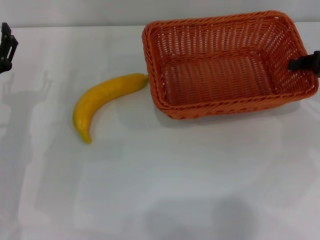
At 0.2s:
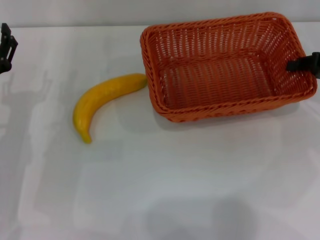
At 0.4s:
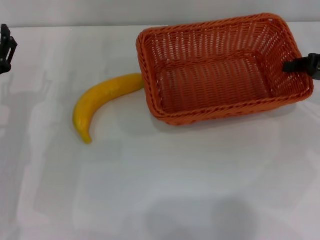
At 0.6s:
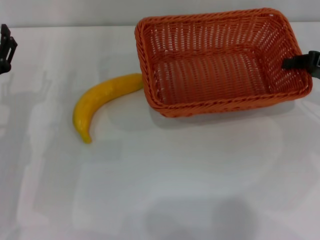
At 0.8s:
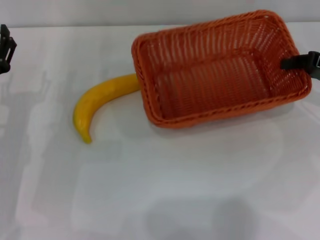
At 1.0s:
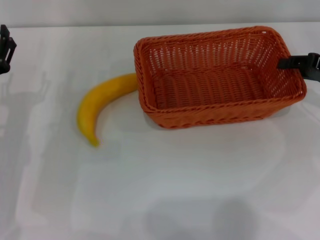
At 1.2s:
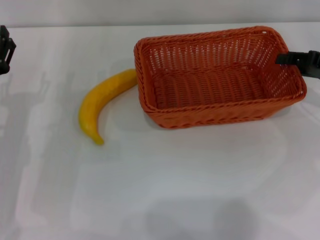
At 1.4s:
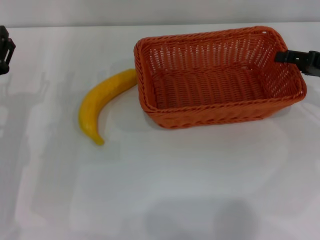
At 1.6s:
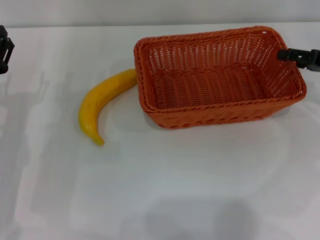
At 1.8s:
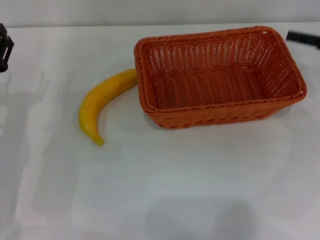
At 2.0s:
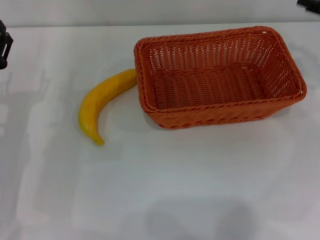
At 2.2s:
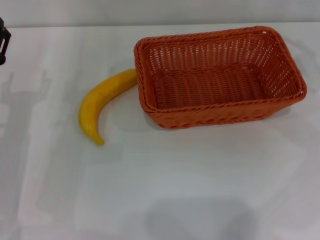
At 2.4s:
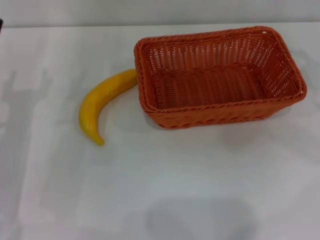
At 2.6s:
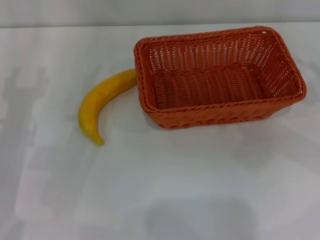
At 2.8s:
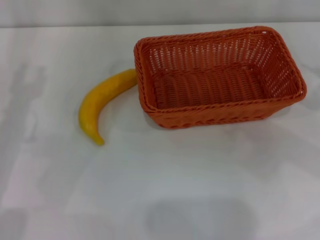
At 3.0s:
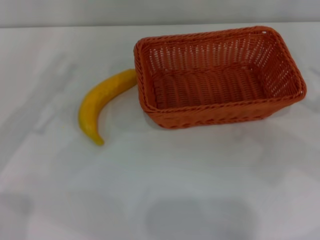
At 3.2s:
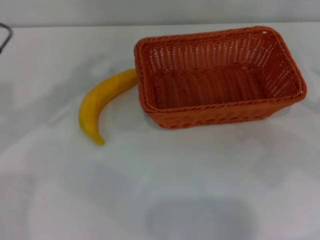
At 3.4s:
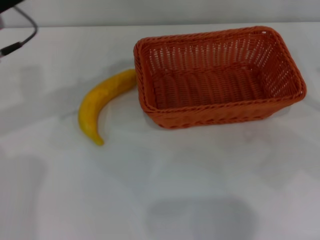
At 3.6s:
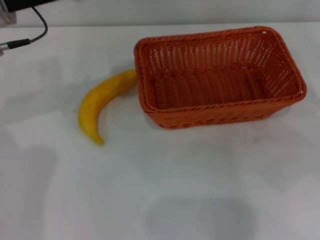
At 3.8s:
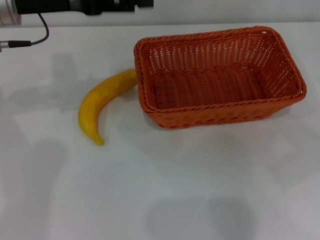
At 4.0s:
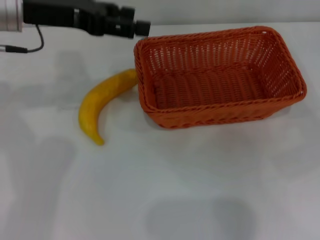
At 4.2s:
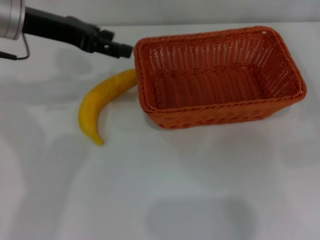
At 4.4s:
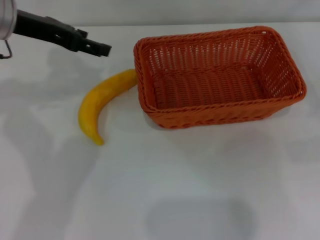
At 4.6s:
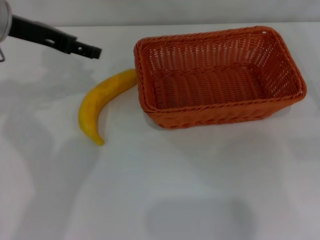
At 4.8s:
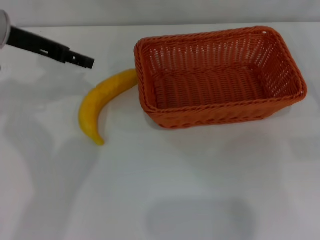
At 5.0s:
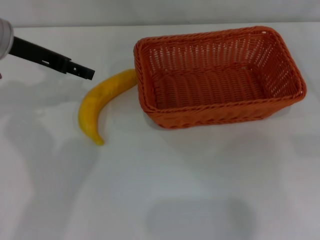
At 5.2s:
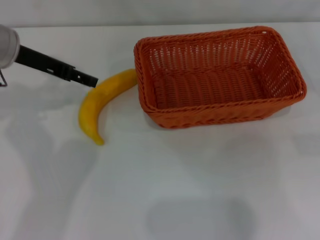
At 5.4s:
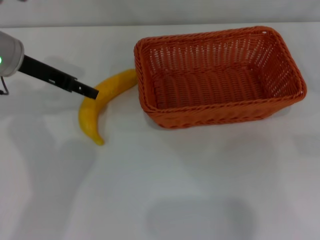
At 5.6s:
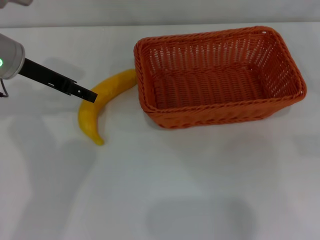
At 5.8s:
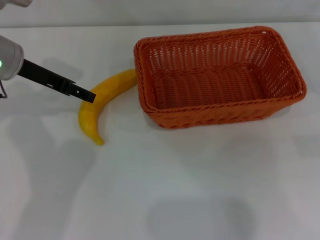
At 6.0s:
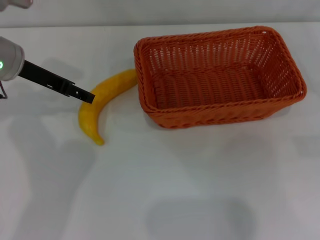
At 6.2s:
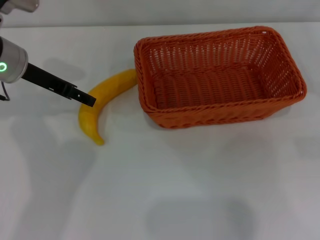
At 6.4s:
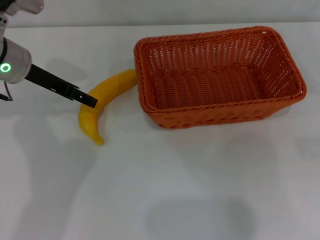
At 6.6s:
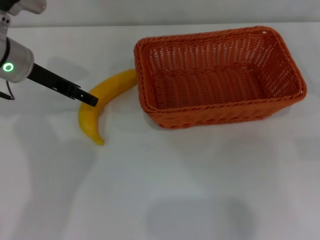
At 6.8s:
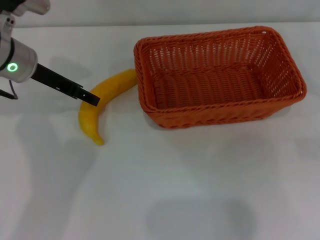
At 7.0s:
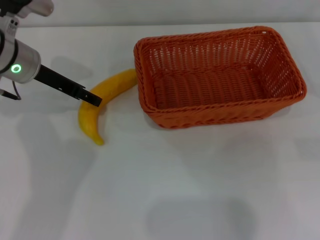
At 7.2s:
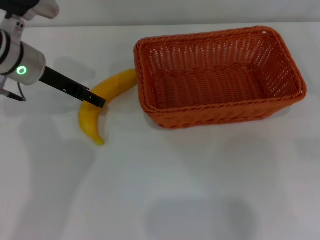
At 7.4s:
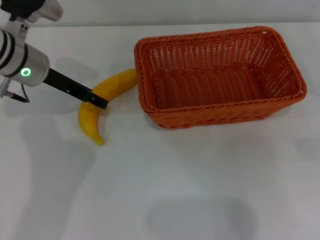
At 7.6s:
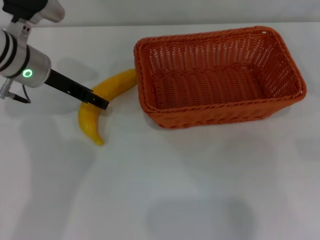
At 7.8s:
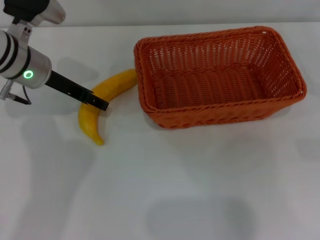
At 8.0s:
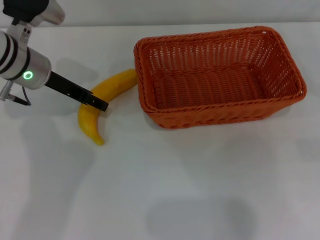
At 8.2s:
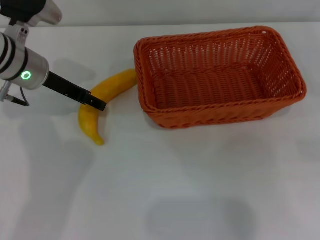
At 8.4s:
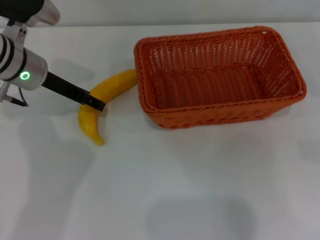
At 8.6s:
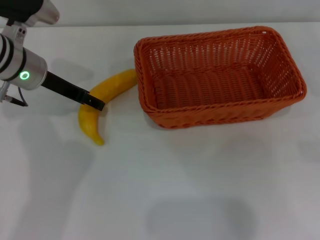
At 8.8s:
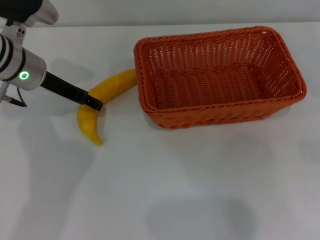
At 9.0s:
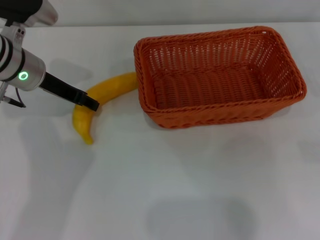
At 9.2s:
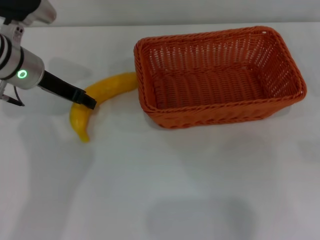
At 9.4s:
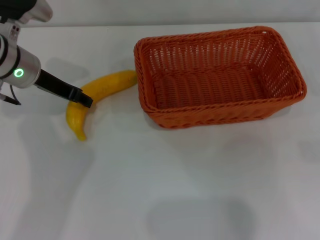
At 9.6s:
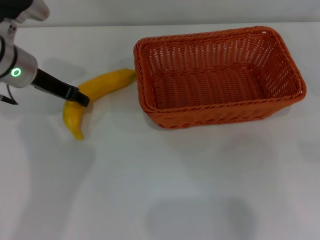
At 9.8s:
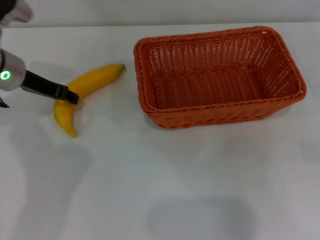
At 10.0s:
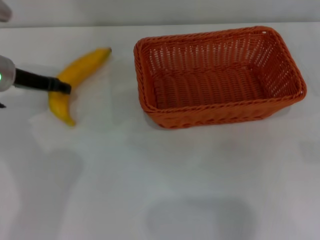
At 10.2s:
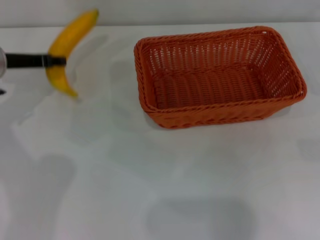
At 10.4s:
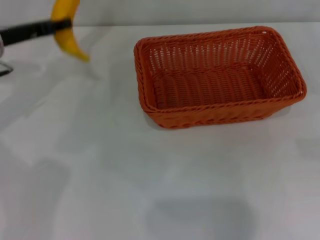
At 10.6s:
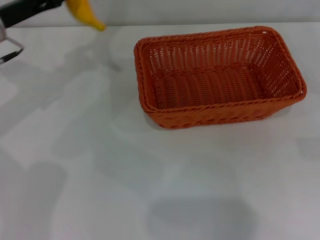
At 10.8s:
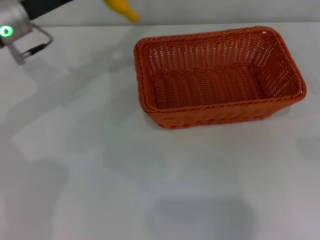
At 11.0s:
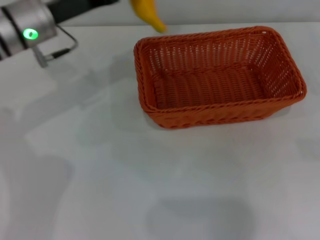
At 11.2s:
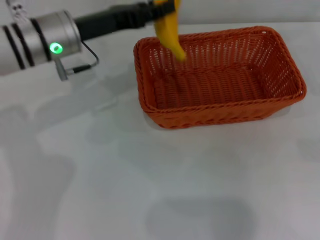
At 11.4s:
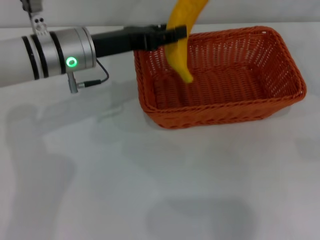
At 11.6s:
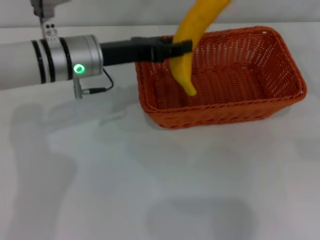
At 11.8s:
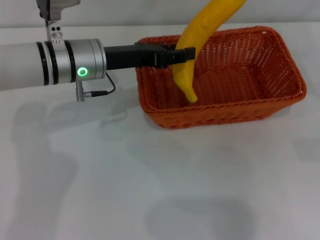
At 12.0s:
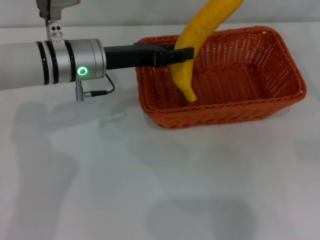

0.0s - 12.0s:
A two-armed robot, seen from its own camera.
Step, 2.0s - 10.0s: Pick up the banana with the left gripper.
0.0s - 1.6s: The right gripper opens.
1.6s - 3.0s: The right gripper goes some 10 cm backward, while the left gripper heads upward, covering roughly 10 cm.
3.0s - 4.4s: The left gripper goes approximately 10 cm forward and upward.
4.4s - 6.0s: The left gripper is displaced downward by about 5 cm.
6.0s - 9.0s: There are only small adjustments of the grippers.
9.0s - 10.4s: The left gripper goes roughly 5 cm to the left, and closes.
10.4s - 12.0s: The left gripper is displaced to the right by roughly 15 cm.

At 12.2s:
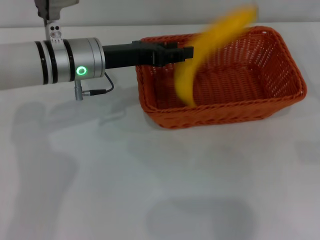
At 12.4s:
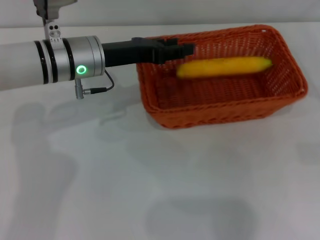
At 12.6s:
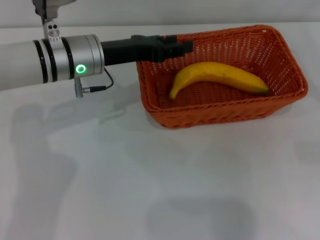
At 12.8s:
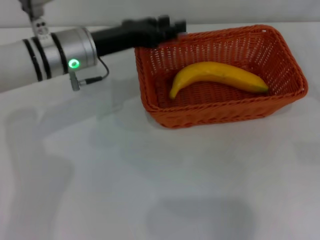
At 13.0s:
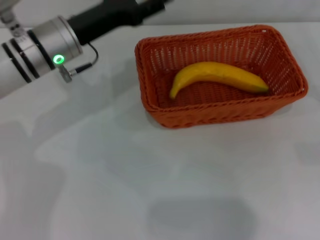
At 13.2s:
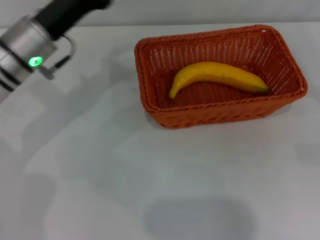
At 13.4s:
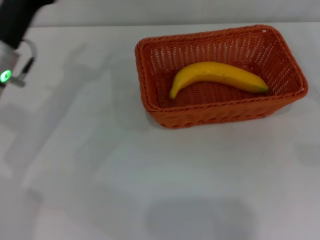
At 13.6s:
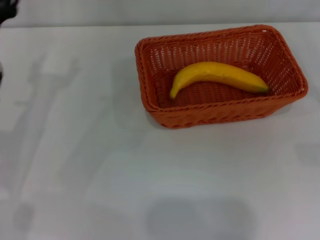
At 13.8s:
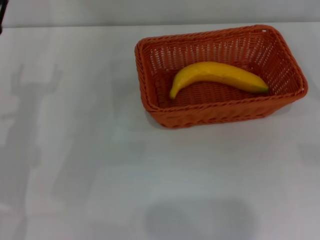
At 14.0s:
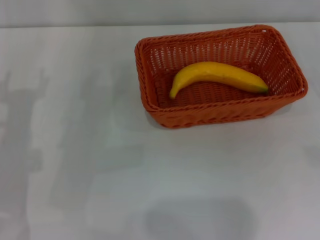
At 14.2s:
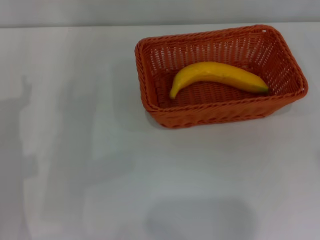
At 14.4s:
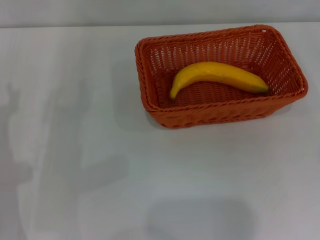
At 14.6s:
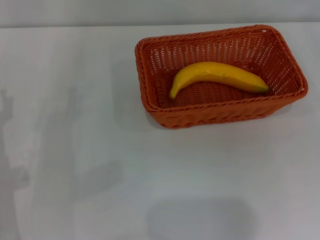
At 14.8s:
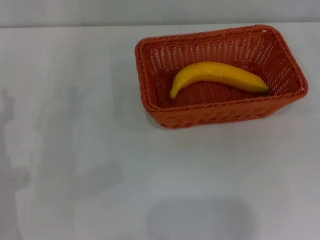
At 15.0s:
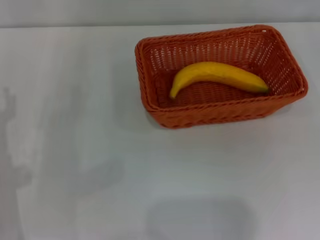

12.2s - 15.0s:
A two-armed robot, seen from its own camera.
12.2s - 13.6s: The left gripper travels to the left and backward by roughly 15 cm, and opens its fingers.

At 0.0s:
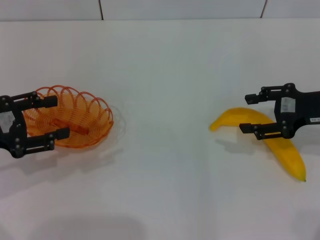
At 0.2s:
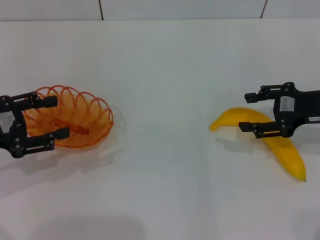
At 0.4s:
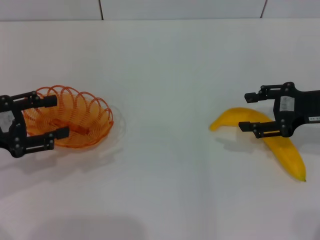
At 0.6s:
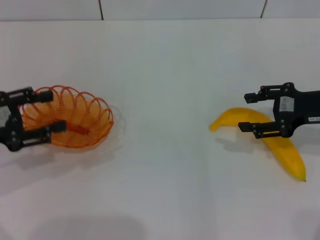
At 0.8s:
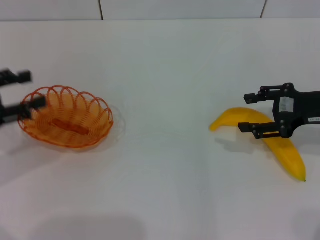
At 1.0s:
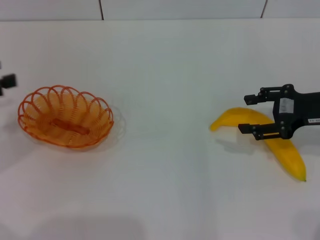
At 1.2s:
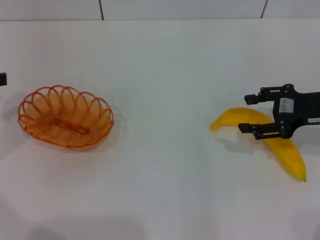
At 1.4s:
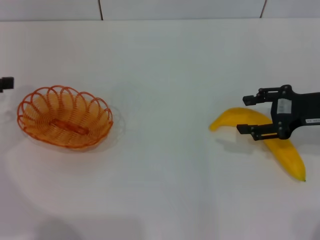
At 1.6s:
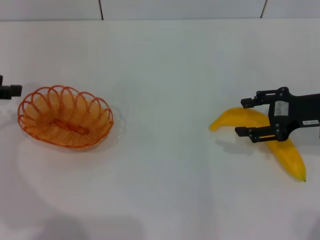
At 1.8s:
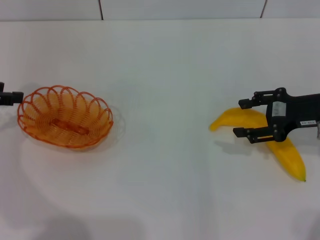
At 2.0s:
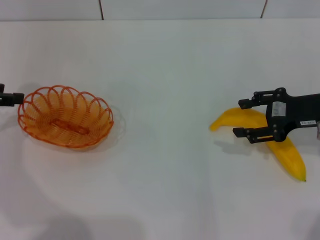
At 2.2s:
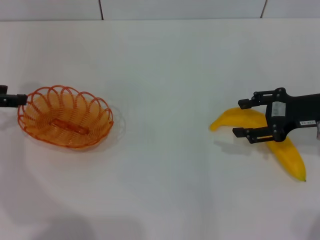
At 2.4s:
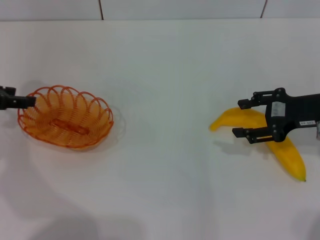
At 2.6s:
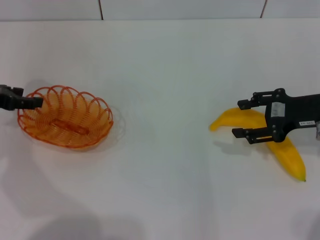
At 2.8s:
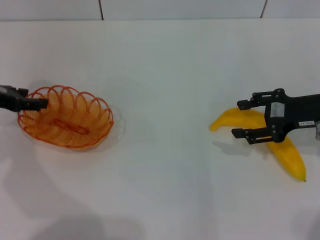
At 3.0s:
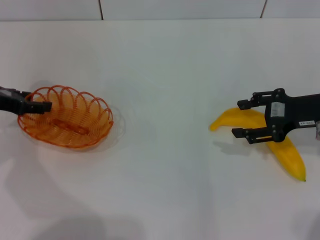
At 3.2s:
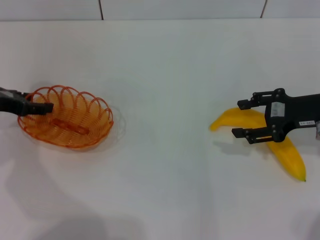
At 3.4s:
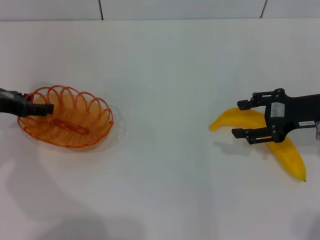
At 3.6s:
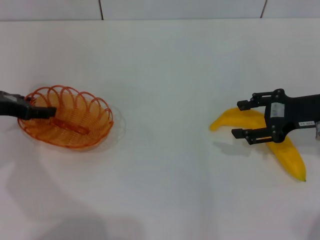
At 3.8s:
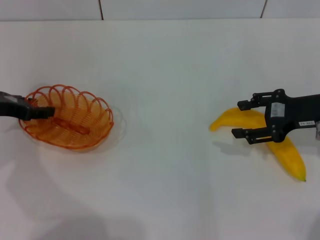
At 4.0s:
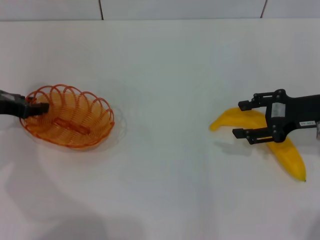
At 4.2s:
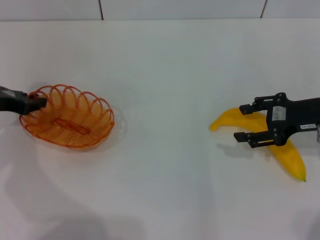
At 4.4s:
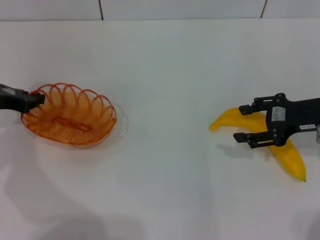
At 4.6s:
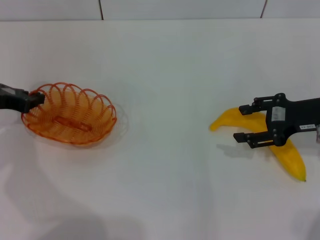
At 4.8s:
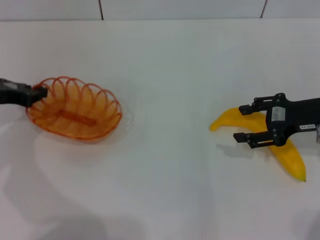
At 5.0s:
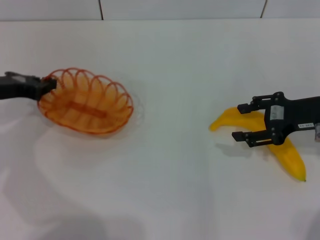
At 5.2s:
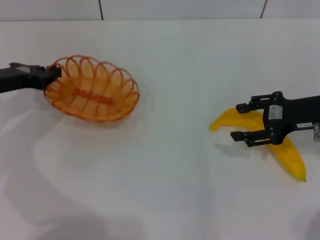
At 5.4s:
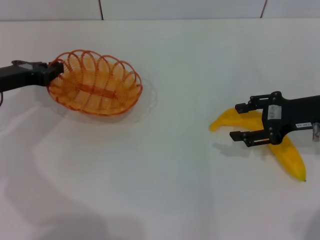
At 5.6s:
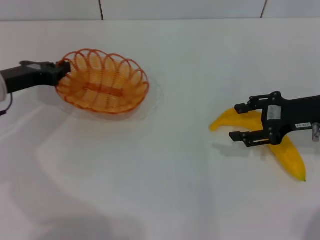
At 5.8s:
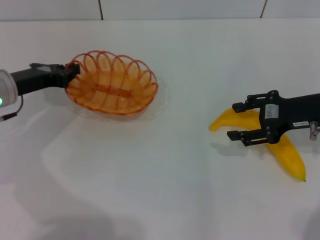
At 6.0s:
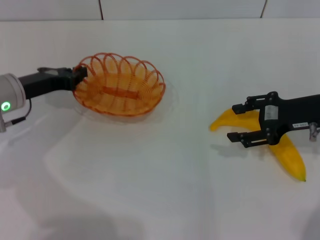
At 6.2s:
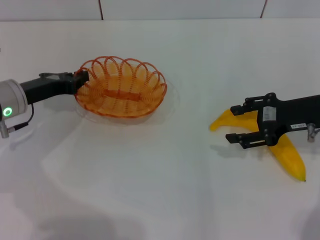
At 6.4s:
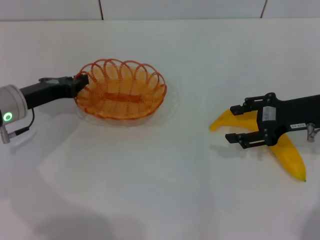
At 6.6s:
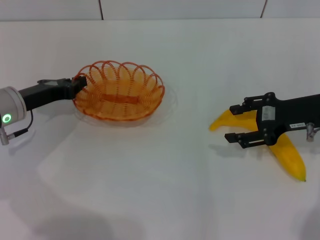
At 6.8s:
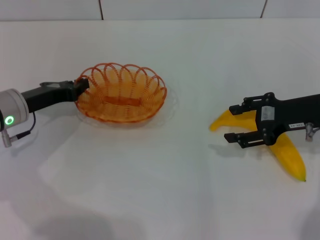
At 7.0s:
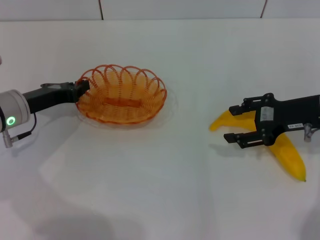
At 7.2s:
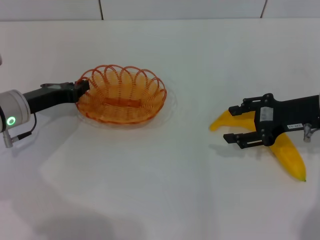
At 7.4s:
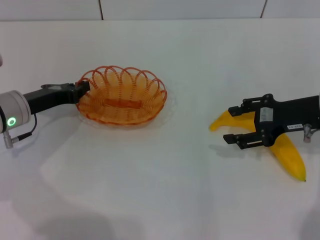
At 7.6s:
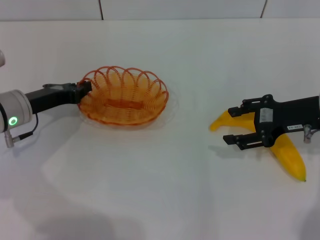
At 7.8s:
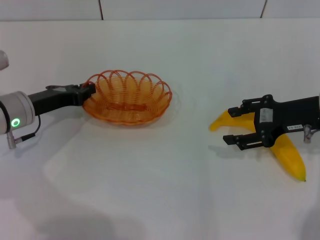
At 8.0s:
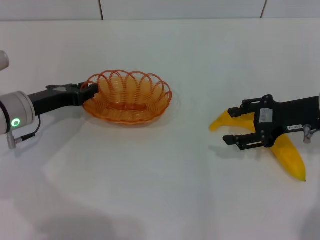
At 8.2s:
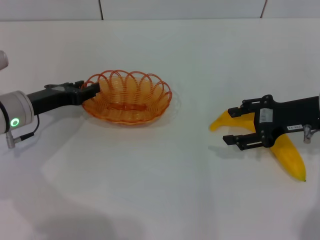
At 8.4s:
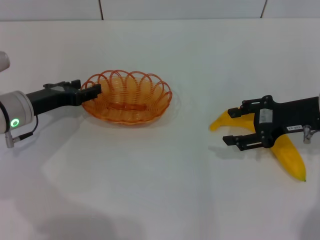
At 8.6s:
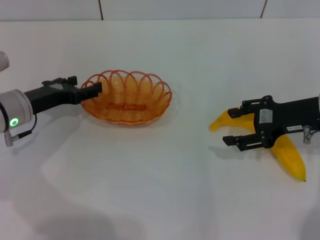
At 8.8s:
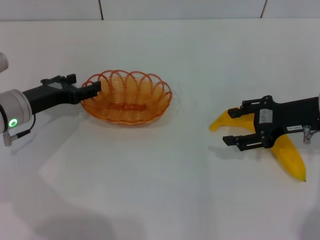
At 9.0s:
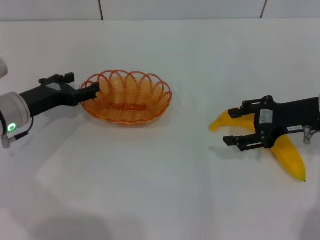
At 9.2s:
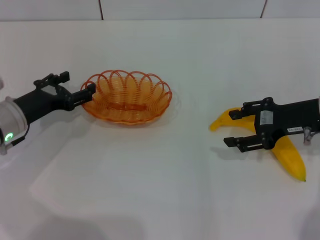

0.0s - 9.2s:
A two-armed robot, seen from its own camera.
Step, 0.0s - 5.2s: Pick up the basket with the left gripper.
0.0s - 1.6s: The left gripper goes about 10 cm forward and upward.
1.6s - 3.0s: The left gripper shifts approximately 5 cm downward.
3.0s - 4.6s: The left gripper closes its fingers.
4.6s - 6.2s: The left gripper moves to the right, some 5 cm.
6.2s - 7.6s: The grippers move only a little.
7.6s - 9.2s: The left gripper opens its fingers.
